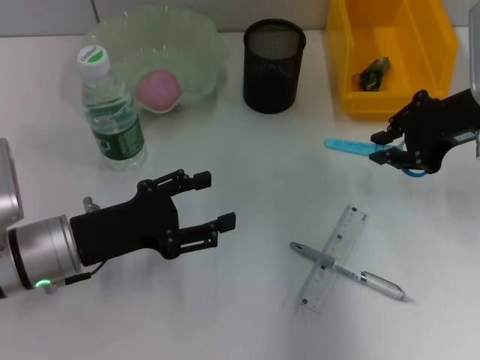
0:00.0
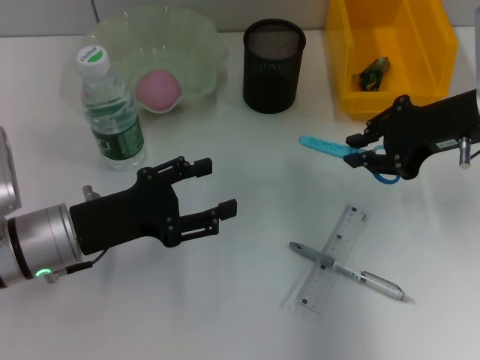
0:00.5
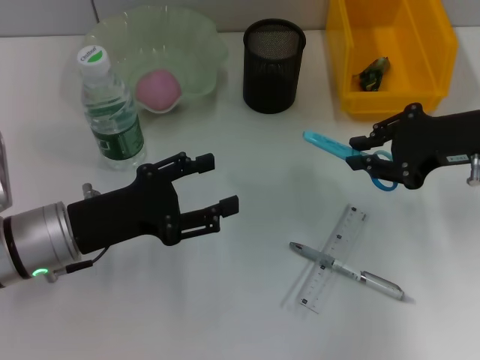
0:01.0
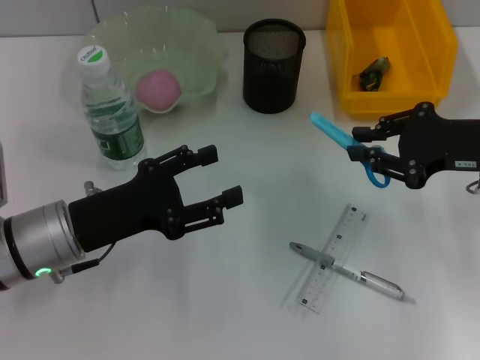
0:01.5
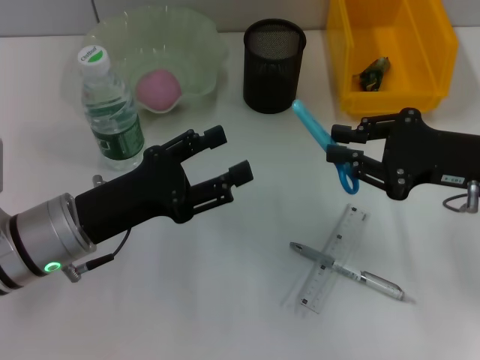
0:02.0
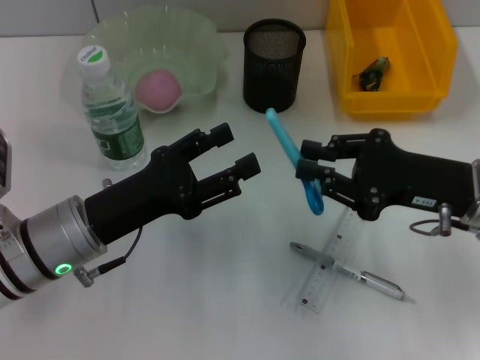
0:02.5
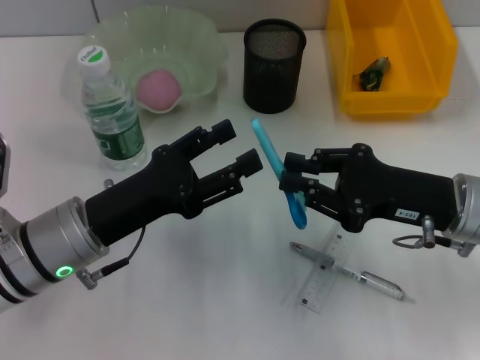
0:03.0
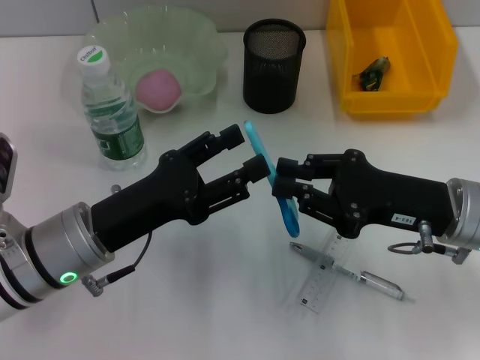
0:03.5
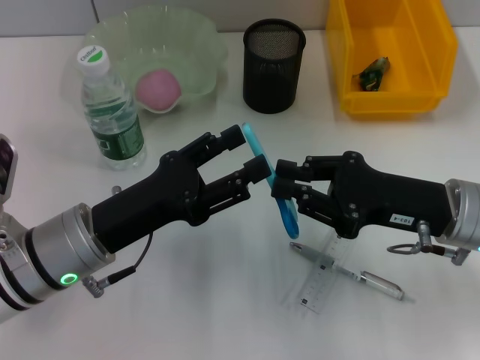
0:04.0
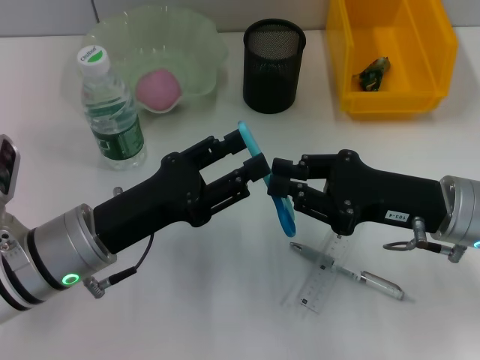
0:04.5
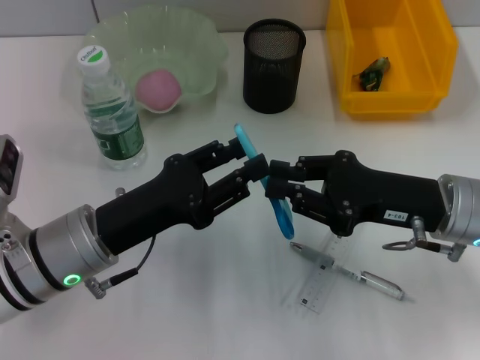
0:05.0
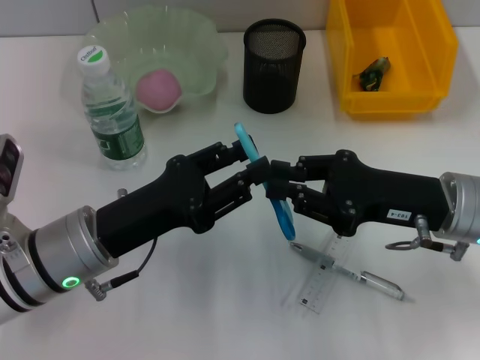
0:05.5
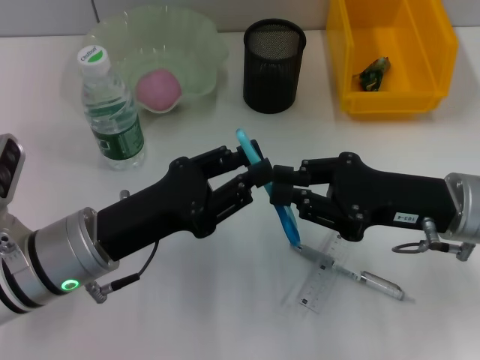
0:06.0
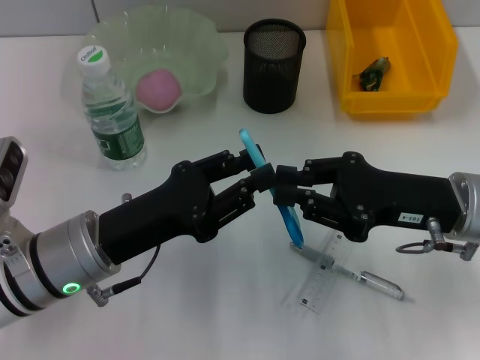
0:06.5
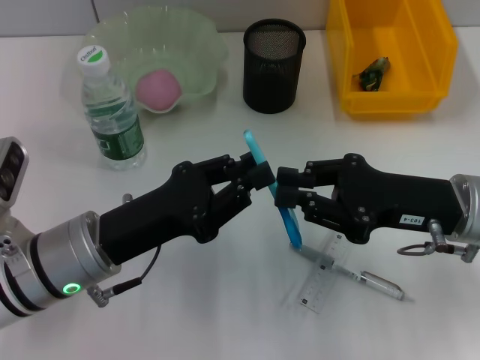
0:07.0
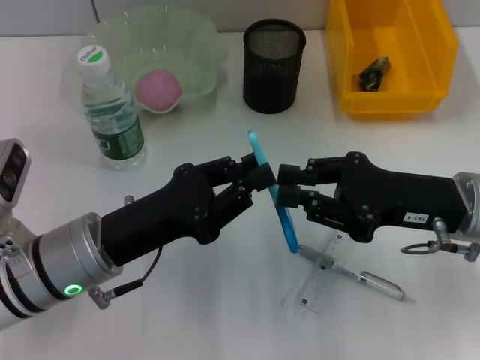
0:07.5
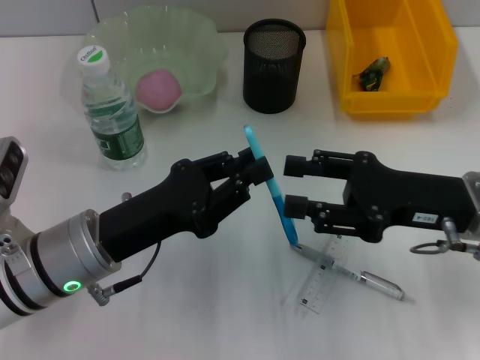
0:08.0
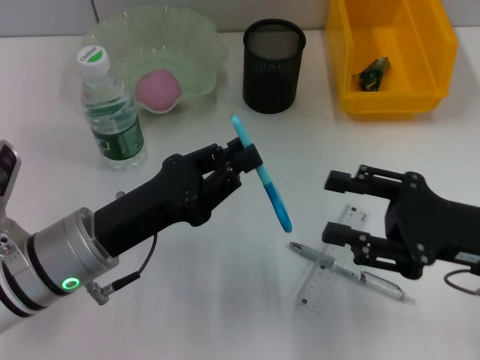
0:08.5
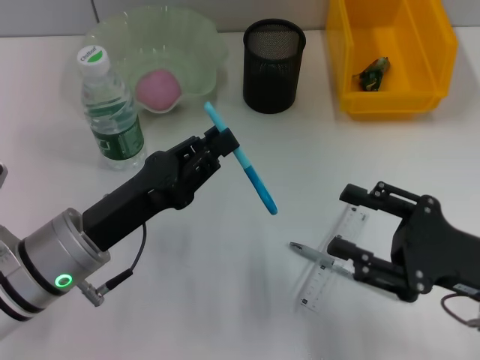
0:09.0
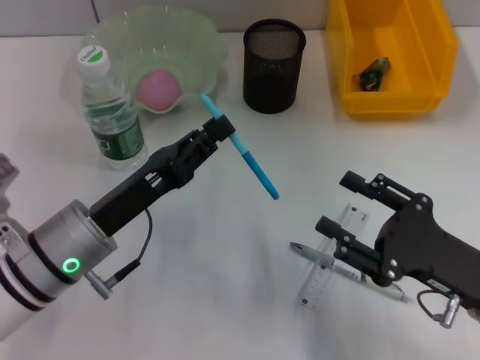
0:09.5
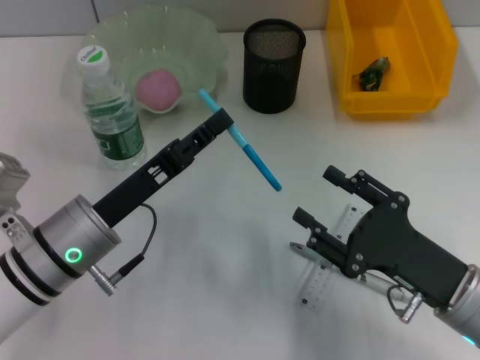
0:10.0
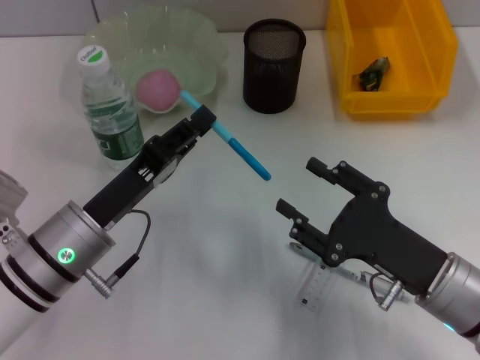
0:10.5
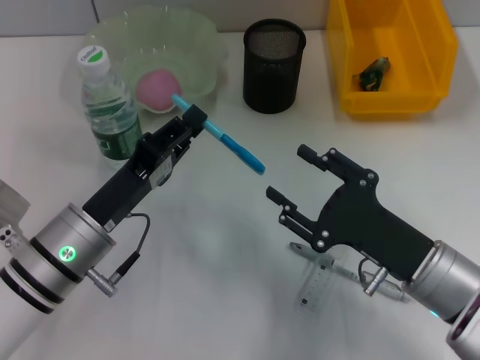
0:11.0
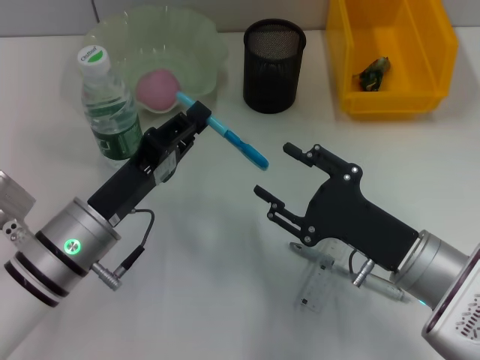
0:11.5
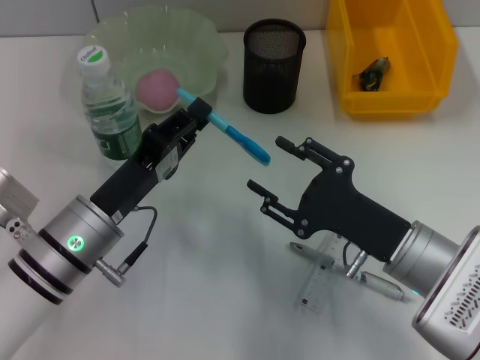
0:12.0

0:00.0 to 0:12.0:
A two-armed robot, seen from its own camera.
Step, 0:00.0 to 0:08.0: Pass the blue scissors from the right hand to the left hand.
0:00.0 to 0:02.0: The right gripper travels backward and downward by roughly 10 cm.
0:02.0 to 0:04.0: The right gripper moves some 5 cm.
0:04.0 to 0:06.0: The left gripper closes its fingers.
0:06.0 to 0:08.0: The right gripper opens up.
0:08.0 to 0:10.0: The right gripper heads backward and downward, covering about 10 cm.
0:10.0 to 0:12.0: The right gripper ends up some 5 cm from where it was.

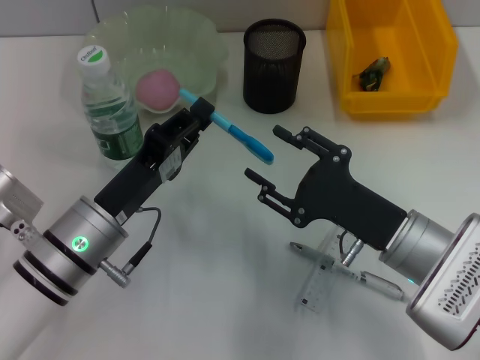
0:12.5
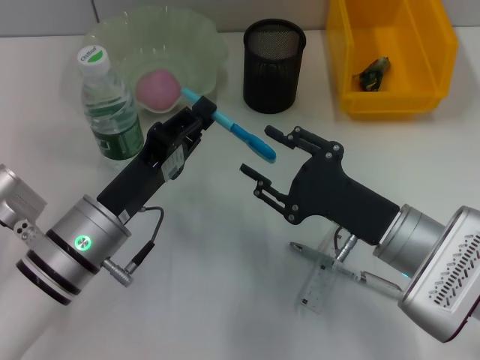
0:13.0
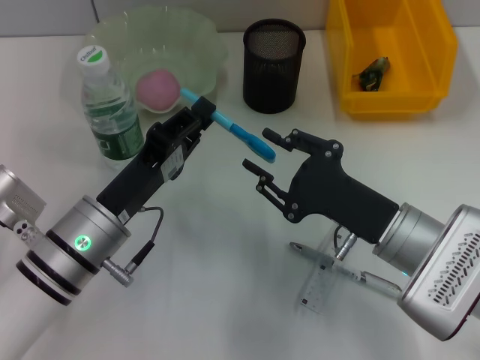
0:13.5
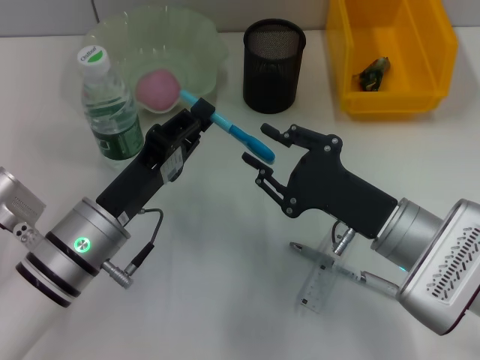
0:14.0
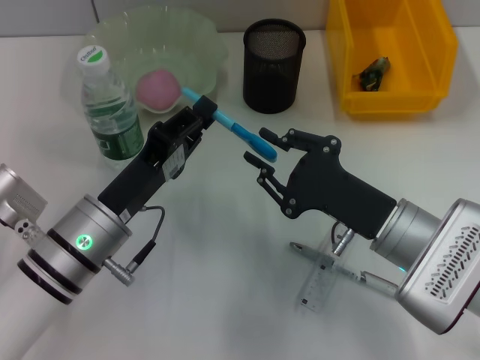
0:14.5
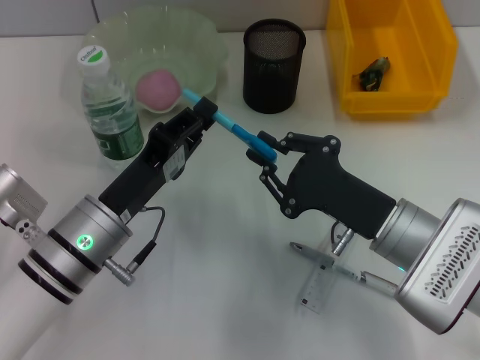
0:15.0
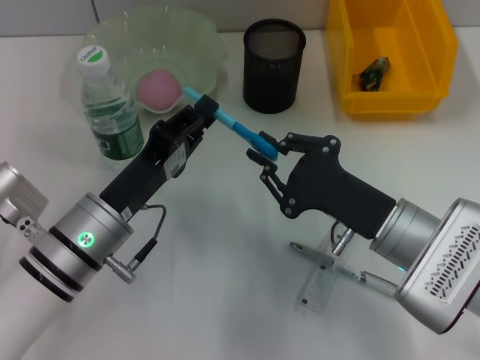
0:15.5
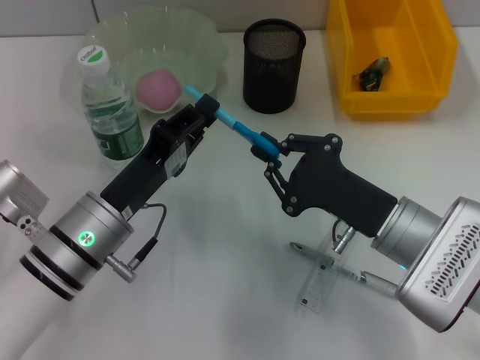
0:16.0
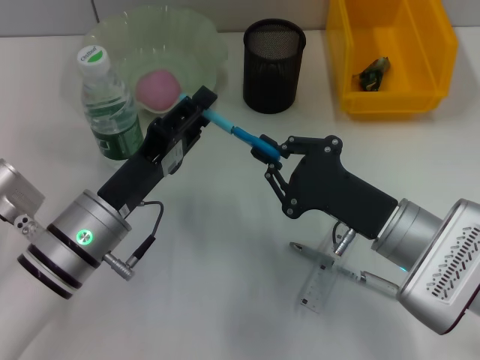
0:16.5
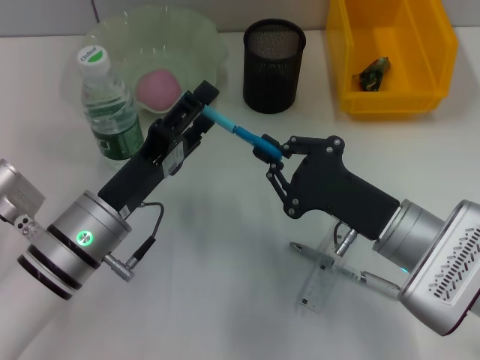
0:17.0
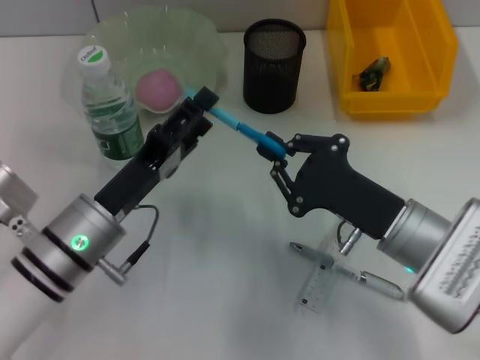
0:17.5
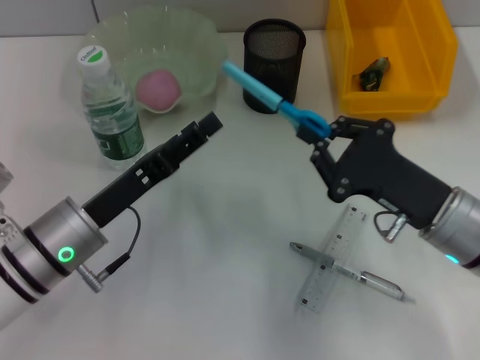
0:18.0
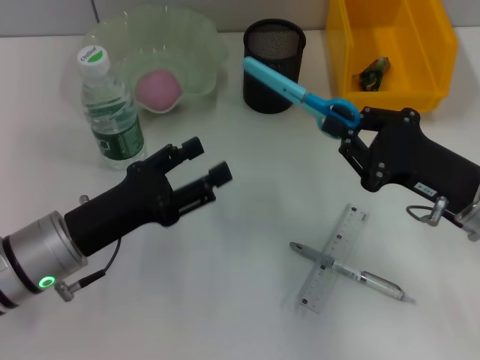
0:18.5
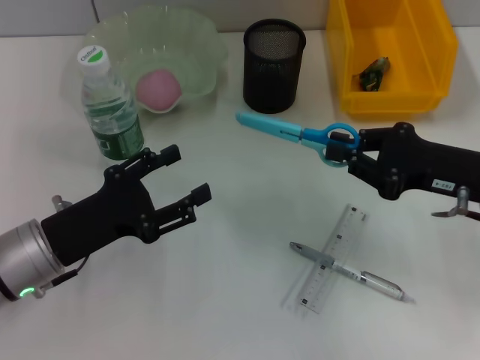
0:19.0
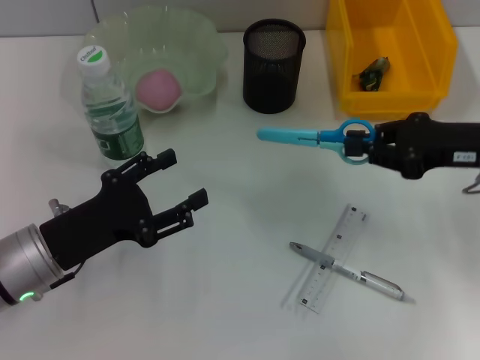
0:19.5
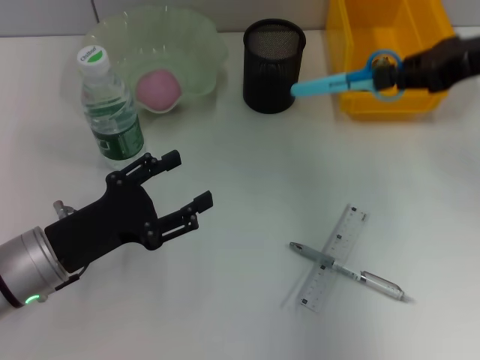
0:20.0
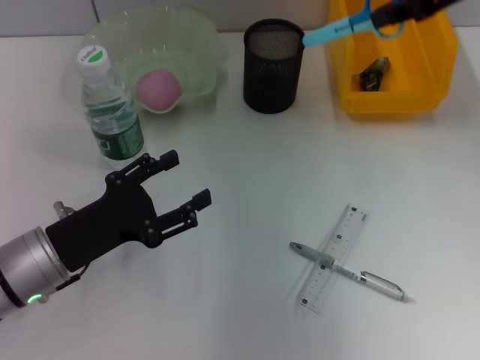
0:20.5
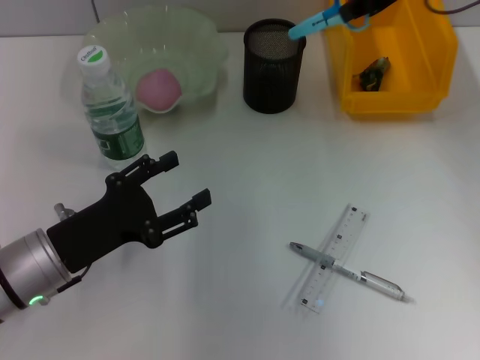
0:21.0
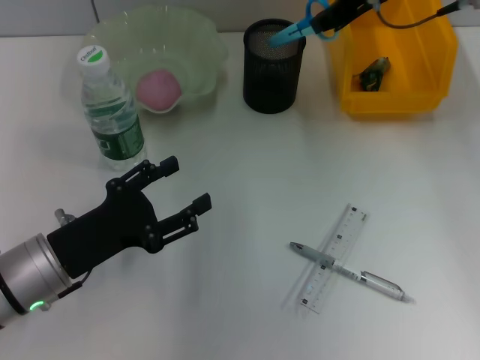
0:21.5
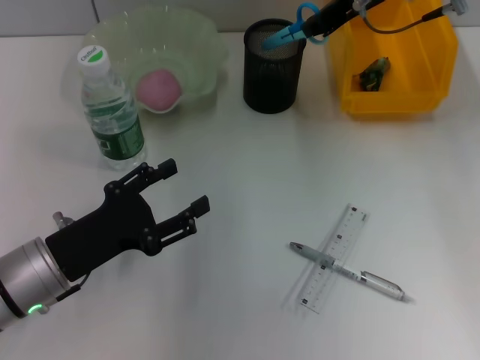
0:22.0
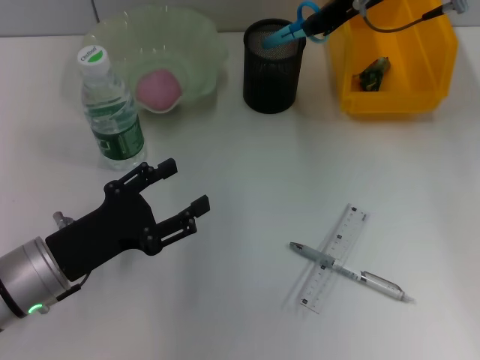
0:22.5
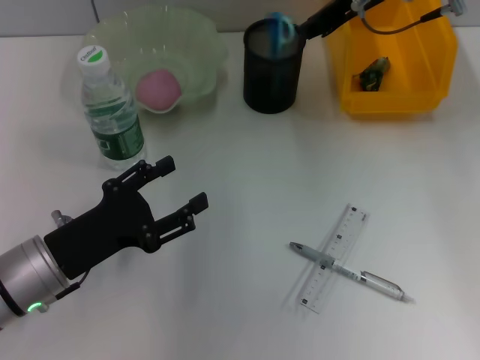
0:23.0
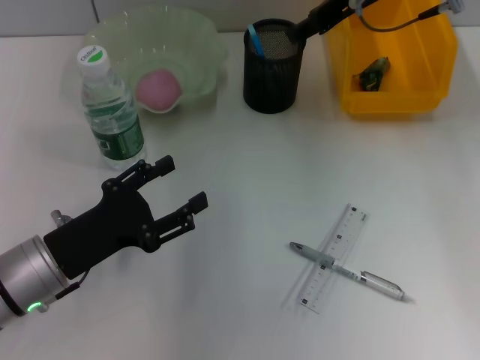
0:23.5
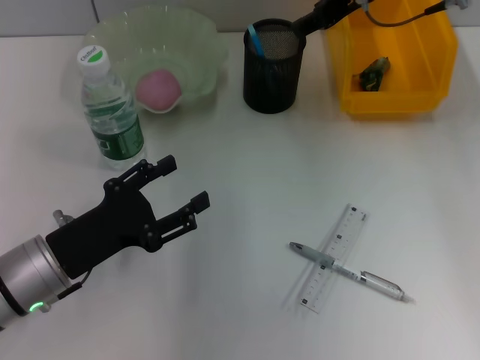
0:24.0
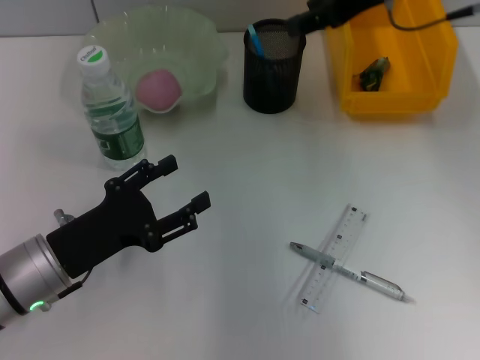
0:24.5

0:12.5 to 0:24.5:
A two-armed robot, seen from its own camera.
Step, 0:12.5 to 0:16.5: Pass the blue scissors from the left hand to the right hand.
Step, 0:17.0 to 0:23.5: Place the blue scissors into the pen holder with the right hand.
0:12.5 to 0:14.5: The right gripper closes up.
0:14.5 to 0:16.5: Both grippers stay about where they are.
0:16.5 to 0:18.5: The right gripper shifts approximately 5 cm to the right. Meanwhile the left gripper opens up.
0:18.5 to 0:20.5: The right gripper moves upward and forward, roughly 25 cm.
0:20.5 to 0:22.5: The right gripper shifts some 10 cm to the left and downward.
0:22.5 to 0:24.5: The right gripper opens up.

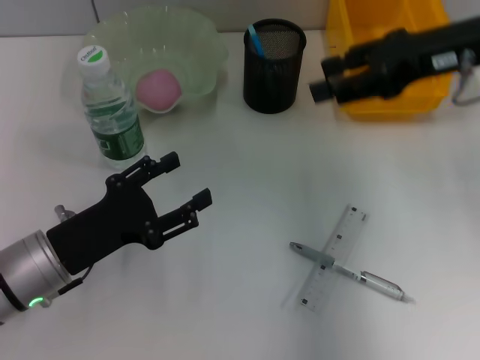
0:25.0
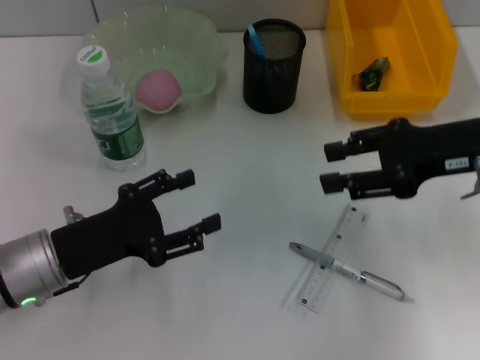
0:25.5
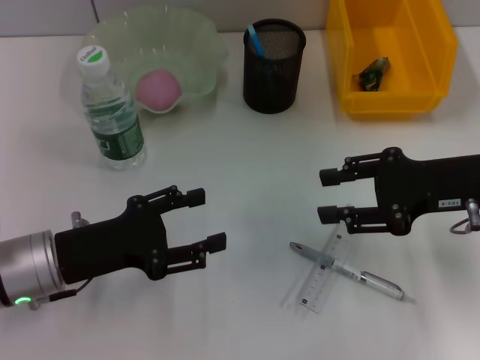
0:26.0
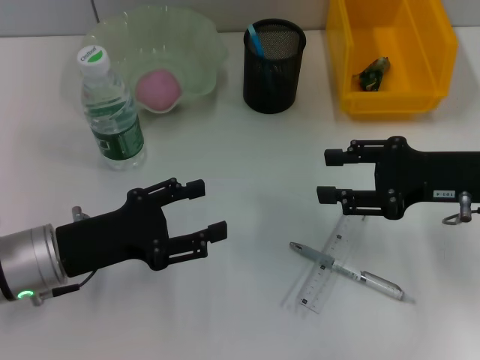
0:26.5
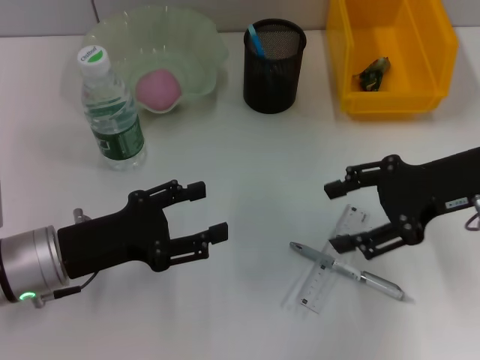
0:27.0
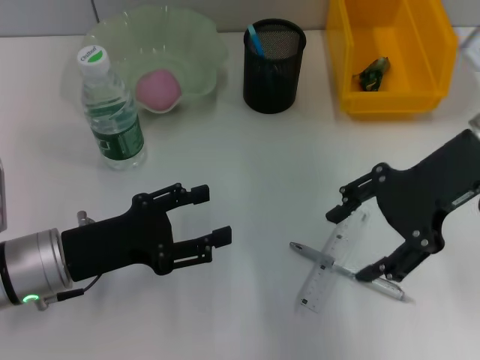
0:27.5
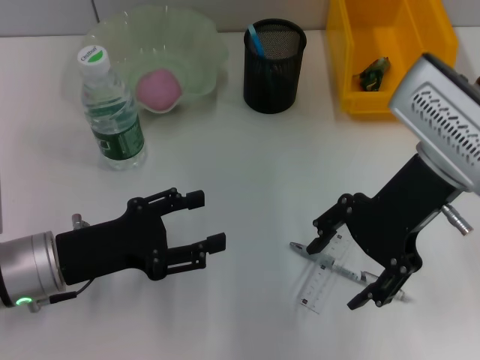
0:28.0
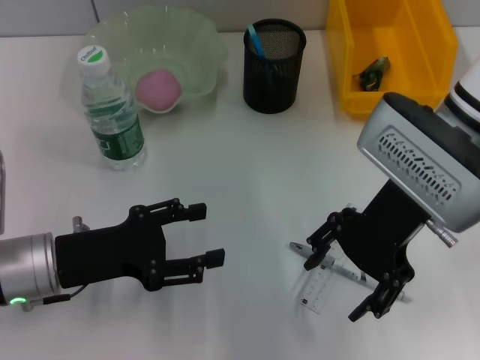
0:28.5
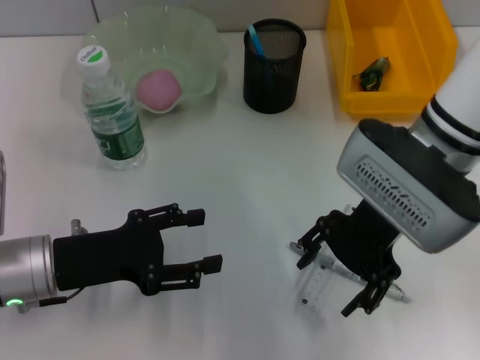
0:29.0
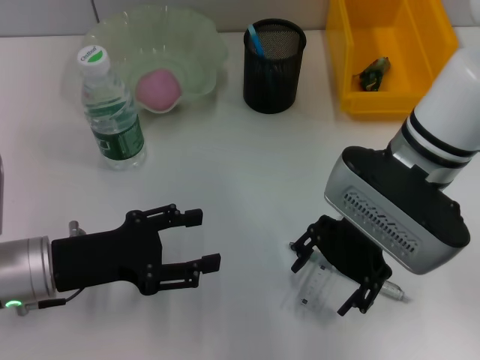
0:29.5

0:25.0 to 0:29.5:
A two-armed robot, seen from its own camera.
0:25.0 to 0:27.0: The right gripper moves downward and backward, some 10 cm.
0:27.0 to 0:29.5: The right gripper heads to the left, covering some 15 cm.
